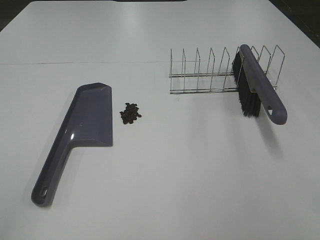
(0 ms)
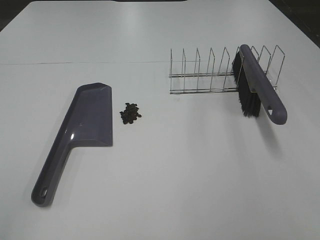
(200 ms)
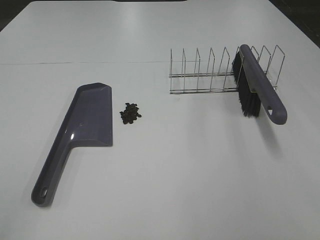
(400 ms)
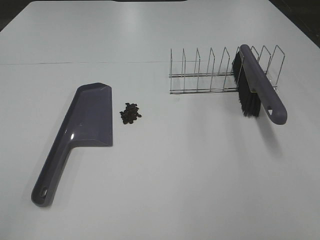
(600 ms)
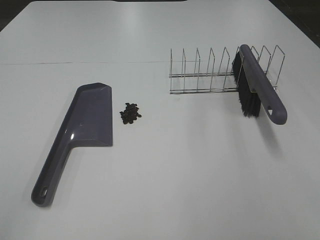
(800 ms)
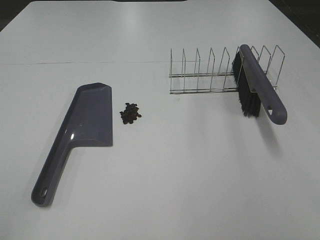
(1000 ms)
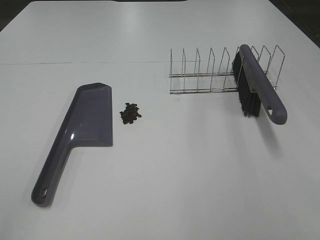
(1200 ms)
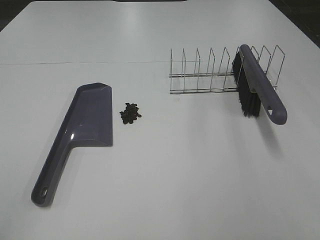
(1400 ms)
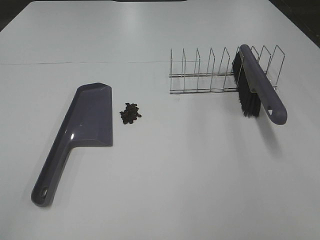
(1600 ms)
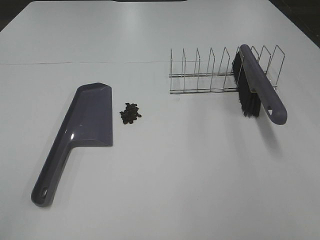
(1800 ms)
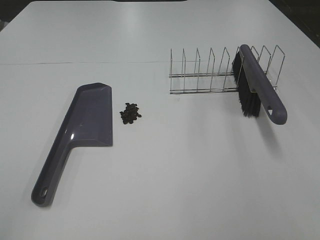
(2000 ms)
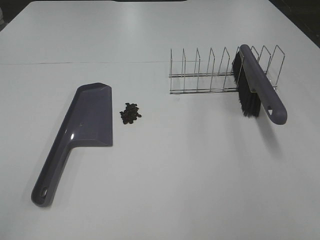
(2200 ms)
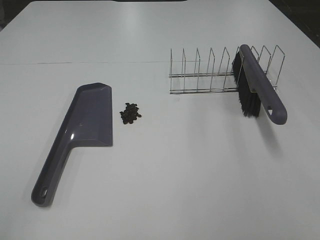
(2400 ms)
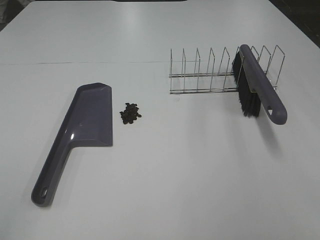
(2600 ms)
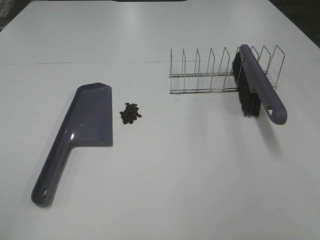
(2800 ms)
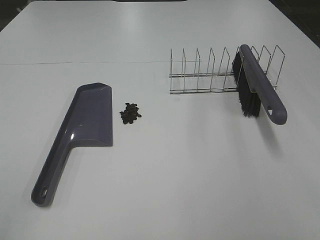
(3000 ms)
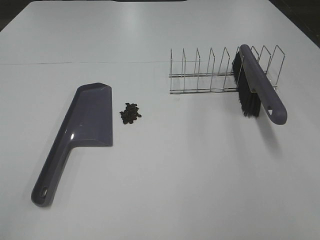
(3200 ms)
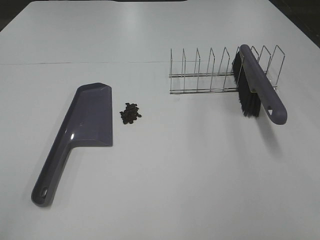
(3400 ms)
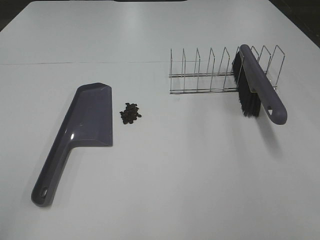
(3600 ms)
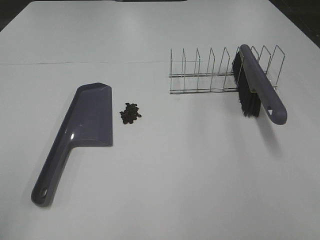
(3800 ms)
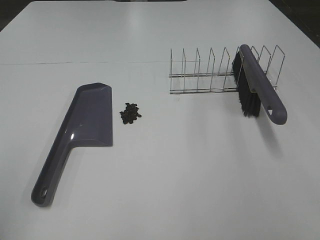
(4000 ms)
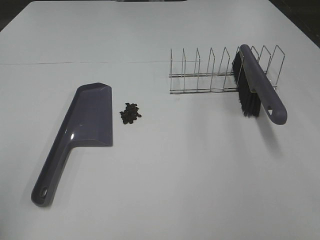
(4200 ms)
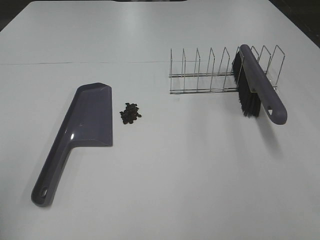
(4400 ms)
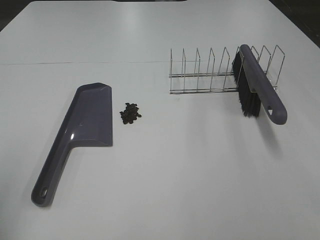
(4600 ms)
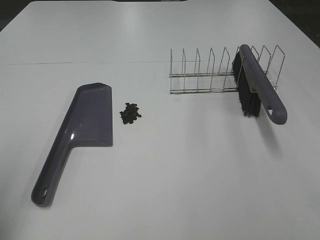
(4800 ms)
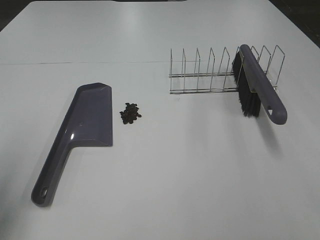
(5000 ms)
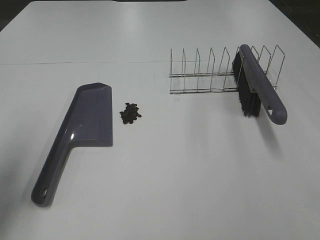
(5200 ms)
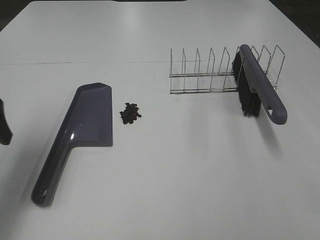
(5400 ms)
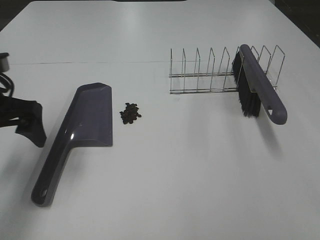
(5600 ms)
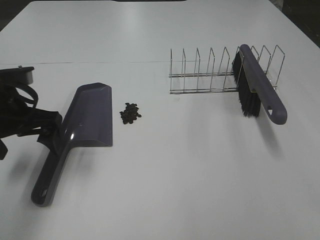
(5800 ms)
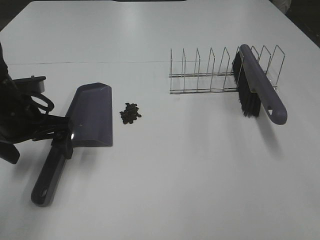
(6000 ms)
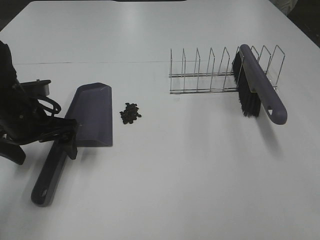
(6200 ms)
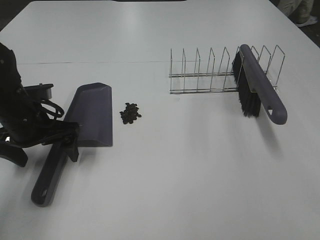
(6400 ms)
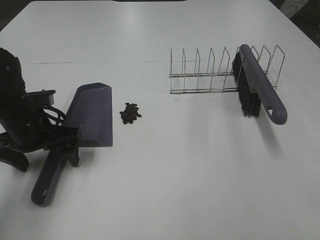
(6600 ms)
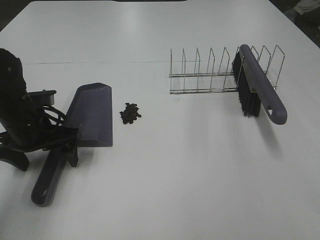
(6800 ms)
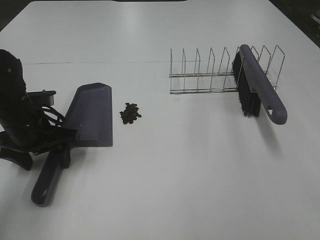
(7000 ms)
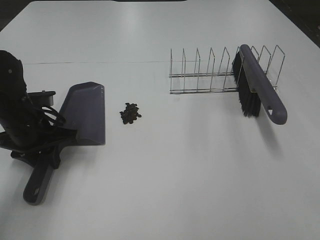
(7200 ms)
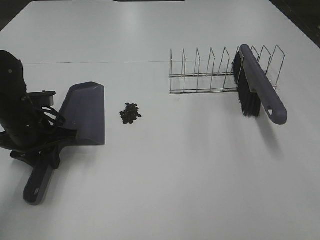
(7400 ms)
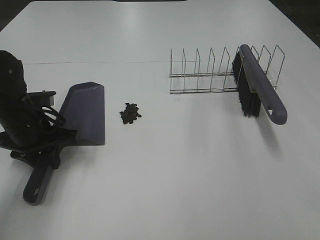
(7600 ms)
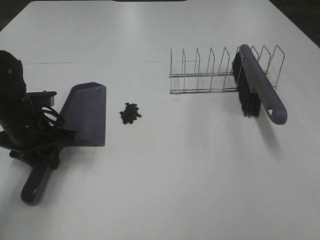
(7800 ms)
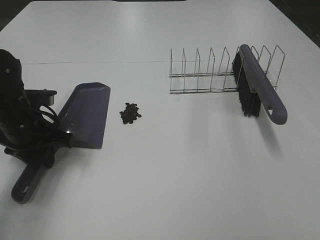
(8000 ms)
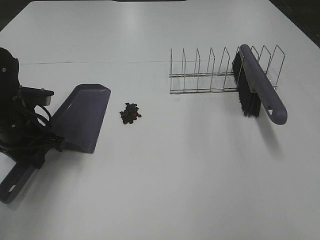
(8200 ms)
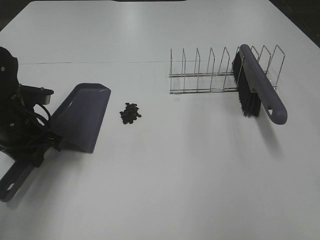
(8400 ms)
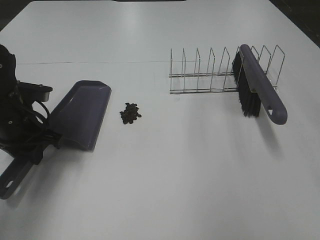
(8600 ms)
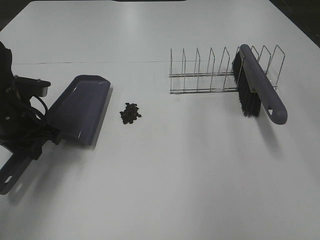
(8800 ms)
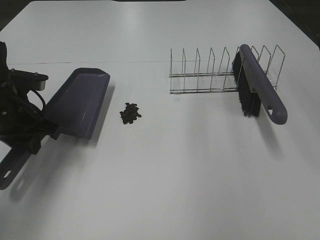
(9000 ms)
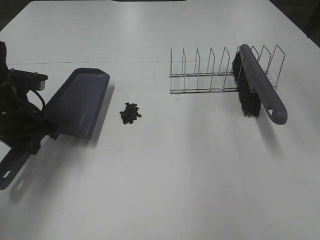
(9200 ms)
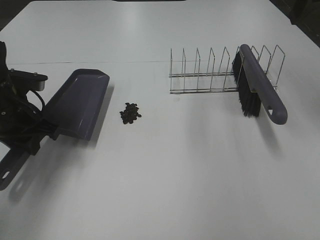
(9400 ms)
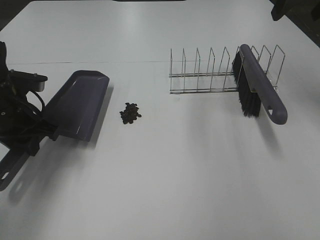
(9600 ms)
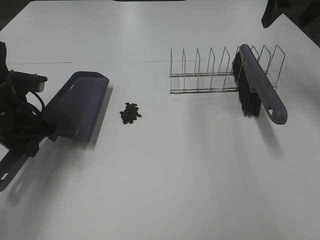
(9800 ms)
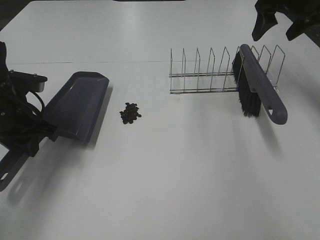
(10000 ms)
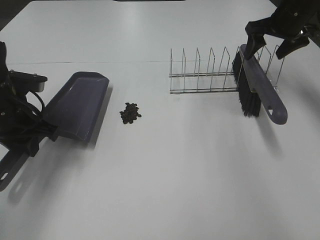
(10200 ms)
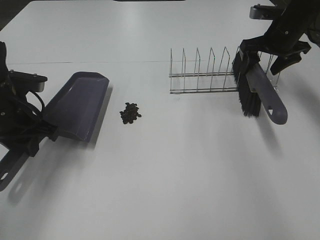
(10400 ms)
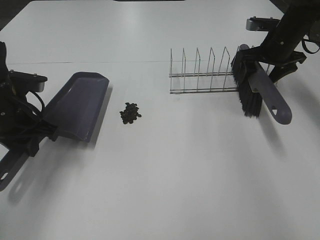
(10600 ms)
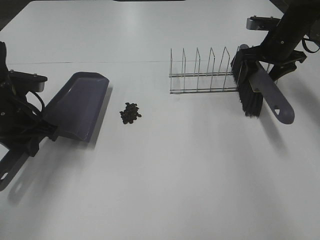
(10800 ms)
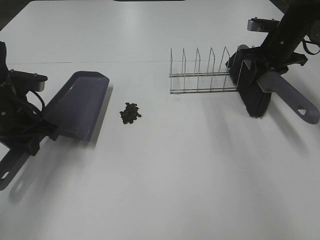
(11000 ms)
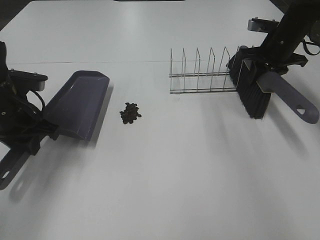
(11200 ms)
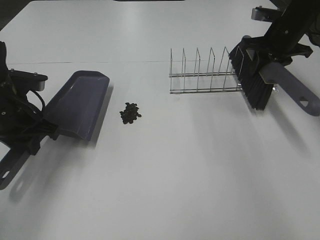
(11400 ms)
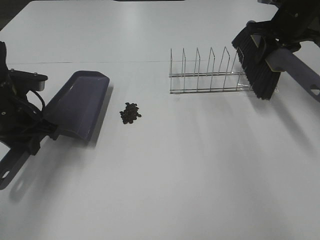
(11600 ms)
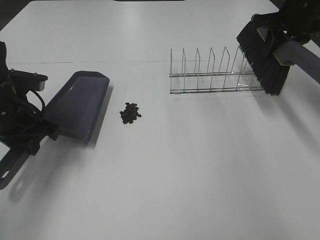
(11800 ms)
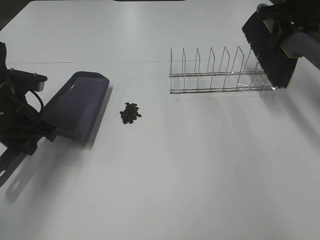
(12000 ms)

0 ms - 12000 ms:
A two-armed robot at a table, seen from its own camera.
Task of the whole recording: Sweep Coffee Bean.
Step, 0 ms - 7200 ms: Left hand: grab the dustpan.
Step, 8400 ms - 11000 ms: Right hand:grab the broom.
0 ms - 3000 ms: Neither gripper changes place.
4400 ms - 6000 ms: The left gripper shifts roughly 25 cm forward, downward and to the right.
6000 ms - 7600 ms: The left gripper closes its fingers.
9000 ms - 10400 ms: The right gripper heads forward and downward, covering some 30 cm.
10400 ms - 12000 ms: The right gripper goes some 10 cm upward, and closes up.

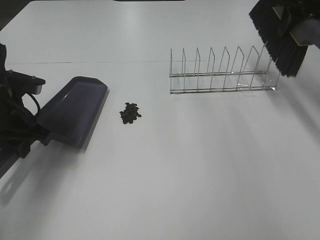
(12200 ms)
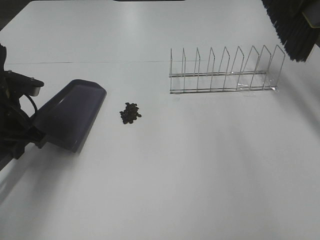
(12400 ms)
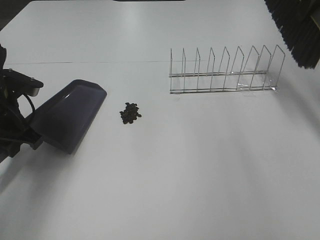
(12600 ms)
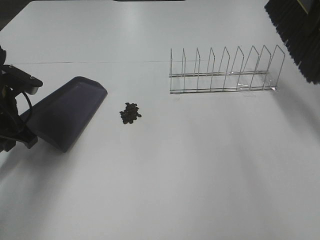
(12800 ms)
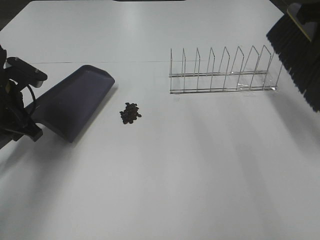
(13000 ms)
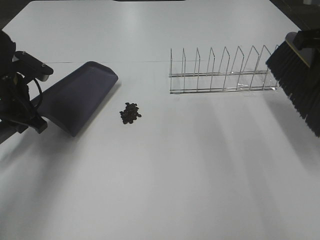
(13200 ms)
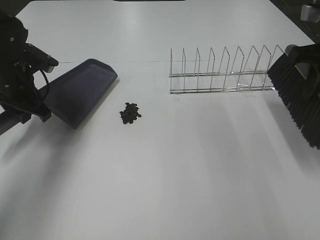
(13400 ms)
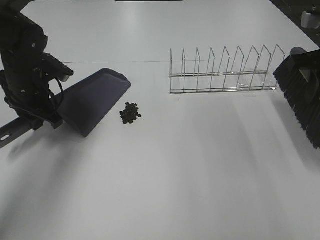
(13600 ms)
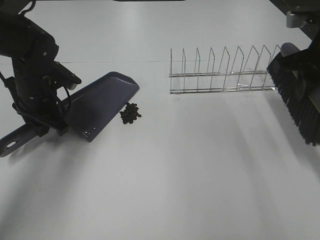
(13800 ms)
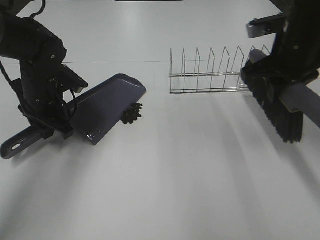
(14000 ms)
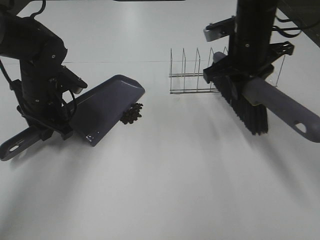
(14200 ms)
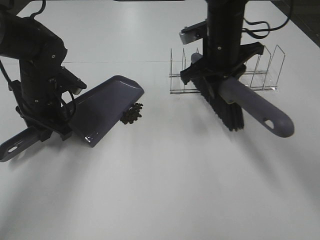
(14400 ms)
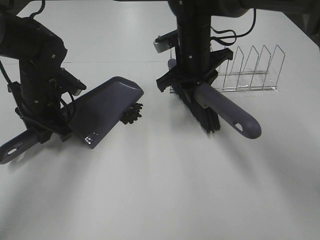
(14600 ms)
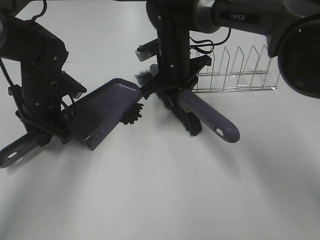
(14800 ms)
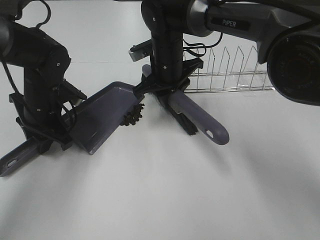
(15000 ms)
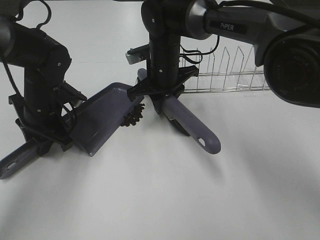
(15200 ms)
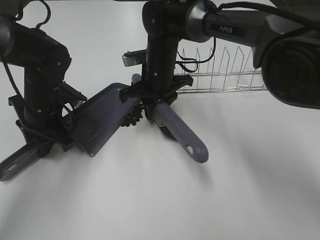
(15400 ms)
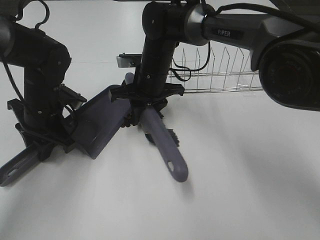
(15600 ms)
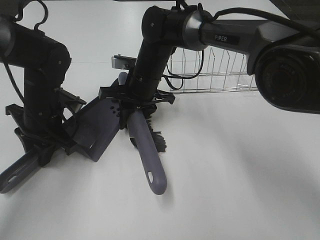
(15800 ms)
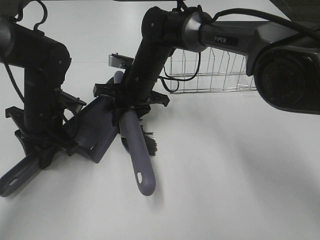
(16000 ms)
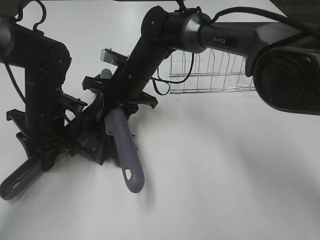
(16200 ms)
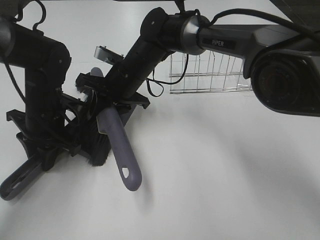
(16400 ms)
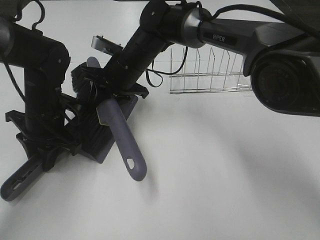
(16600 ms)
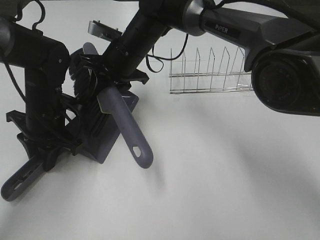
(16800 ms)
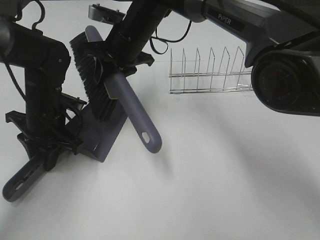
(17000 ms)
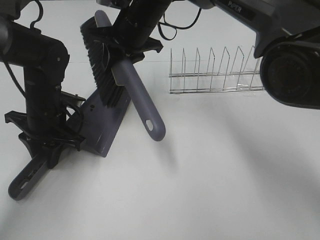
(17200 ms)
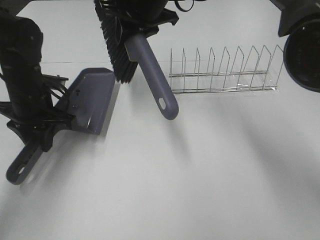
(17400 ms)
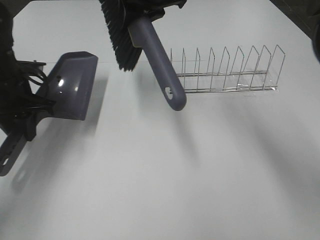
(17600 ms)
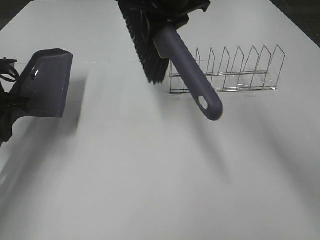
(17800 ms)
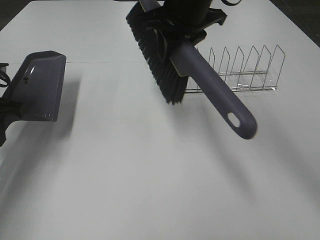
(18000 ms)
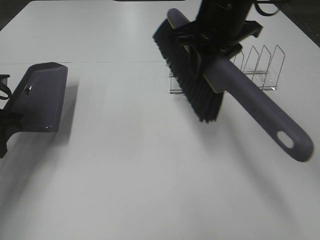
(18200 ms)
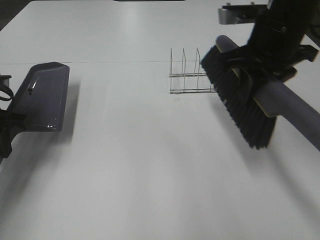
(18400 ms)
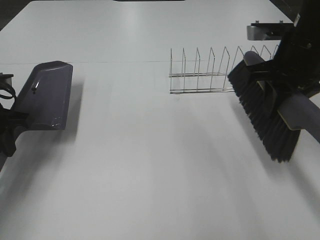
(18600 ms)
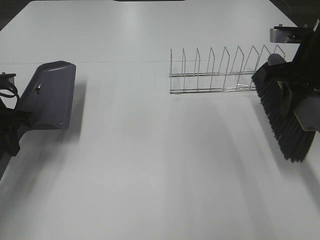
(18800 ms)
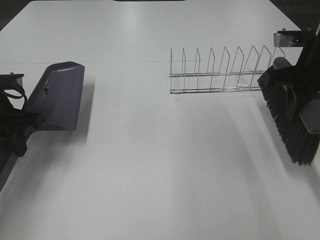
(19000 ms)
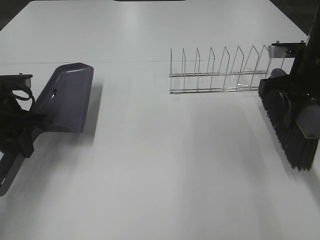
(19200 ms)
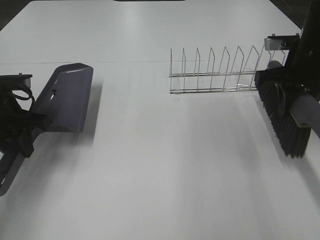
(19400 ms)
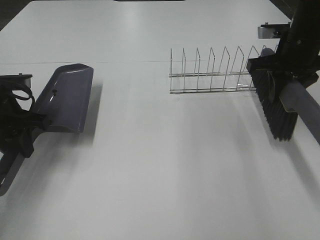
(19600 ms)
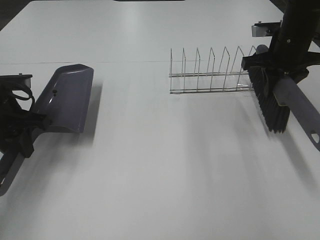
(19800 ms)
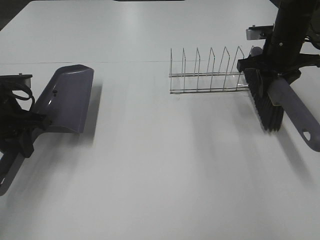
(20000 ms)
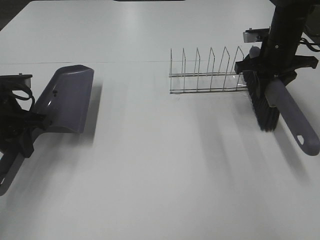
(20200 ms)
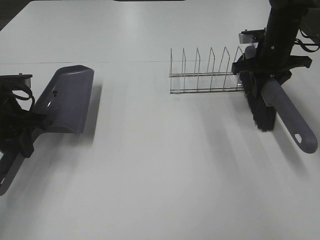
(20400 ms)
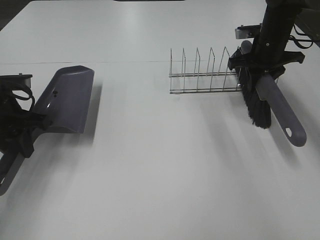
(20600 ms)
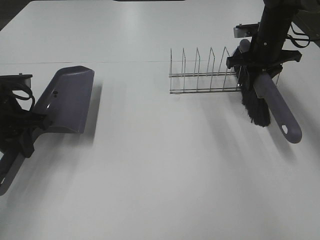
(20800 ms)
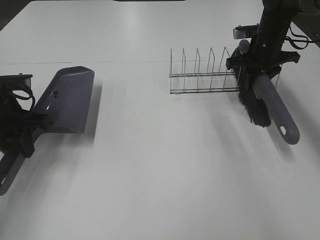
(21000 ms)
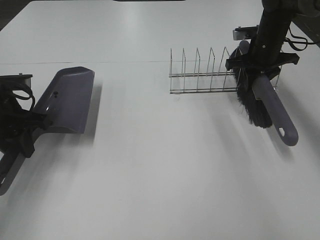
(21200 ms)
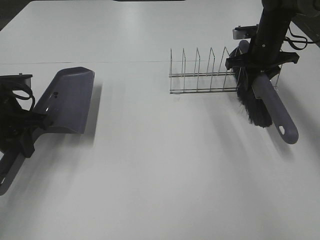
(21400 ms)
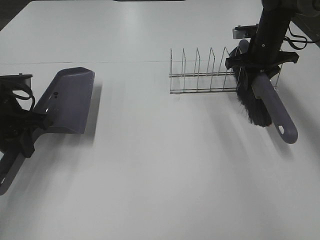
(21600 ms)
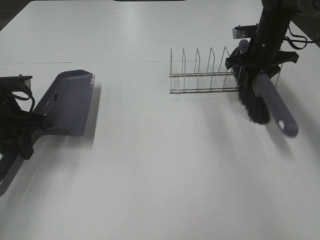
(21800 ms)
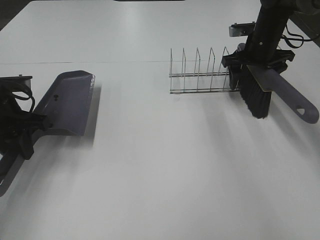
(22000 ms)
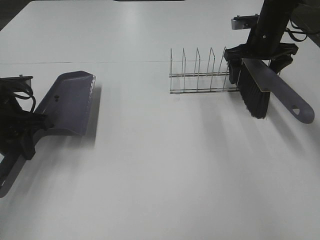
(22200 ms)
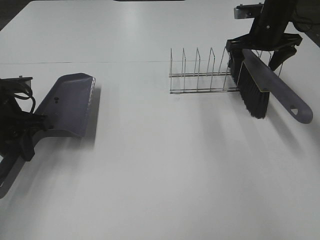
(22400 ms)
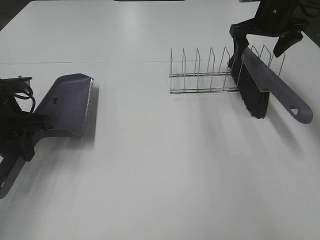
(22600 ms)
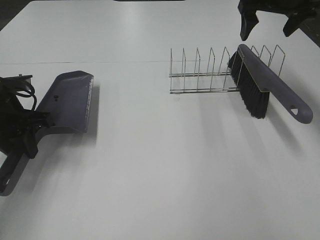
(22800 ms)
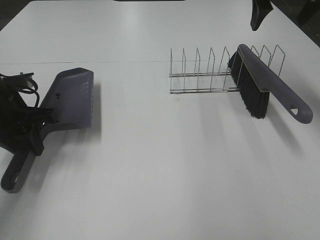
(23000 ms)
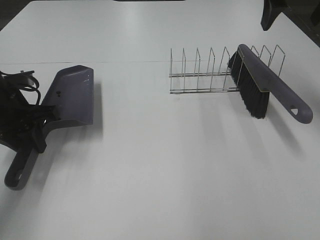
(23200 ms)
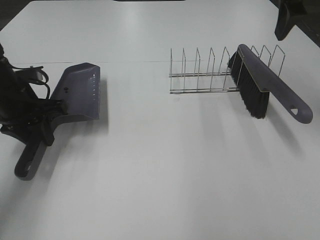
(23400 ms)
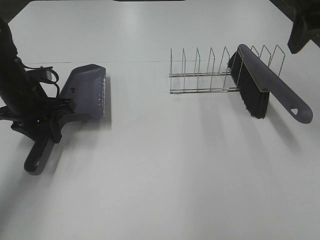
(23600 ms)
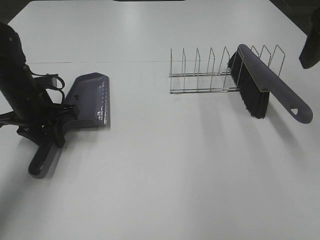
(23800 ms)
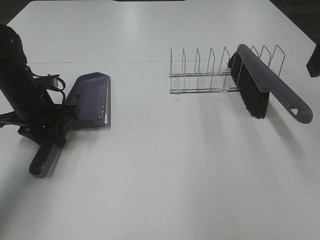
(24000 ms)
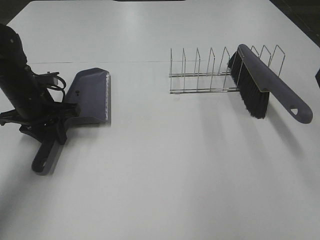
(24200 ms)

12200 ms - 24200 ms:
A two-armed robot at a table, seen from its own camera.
Task of the whole recording: Sweep Coffee Bean.
Step, 12200 ms - 16800 ms: Right hand:sweep the coffee beans into the dustpan.
Step, 17000 ms - 22400 ms: Right hand:place the broom on the rack.
12200 ms - 13800 ms: The right gripper goes about 15 cm backward and downward, while the left gripper is displaced forward by about 5 cm.
13800 ms - 15200 ms: The right gripper heads to the left, downward and forward, covering some 30 cm.
15200 ms - 16600 ms: The right gripper moves to the left, approximately 5 cm.
16600 ms - 18200 ms: The right gripper shifts roughly 20 cm to the right, upward and backward. Meanwhile the left gripper moves to the left and upward, roughly 10 cm.
18200 ms - 19800 ms: The right gripper travels to the right, downward and forward by about 20 cm.
19800 ms - 21200 ms: The right gripper is displaced forward and downward by approximately 10 cm.
21200 ms - 22600 ms: The right gripper travels upward by roughly 10 cm, and opens up.
22600 ms - 24200 ms: The left gripper moves forward, roughly 5 cm. The right gripper heads backward, covering about 25 cm.
